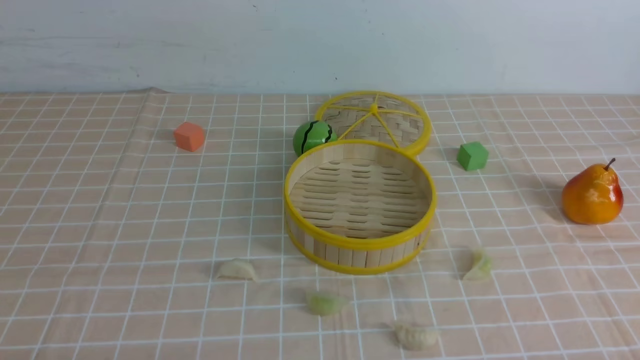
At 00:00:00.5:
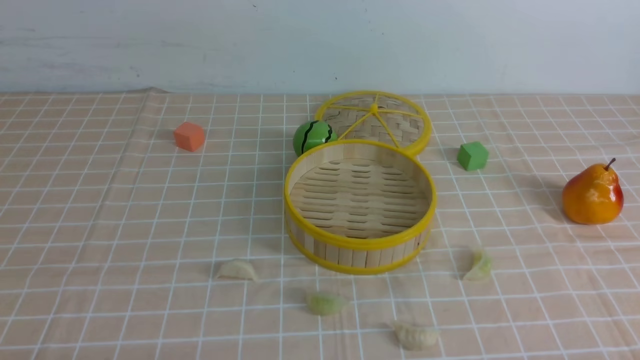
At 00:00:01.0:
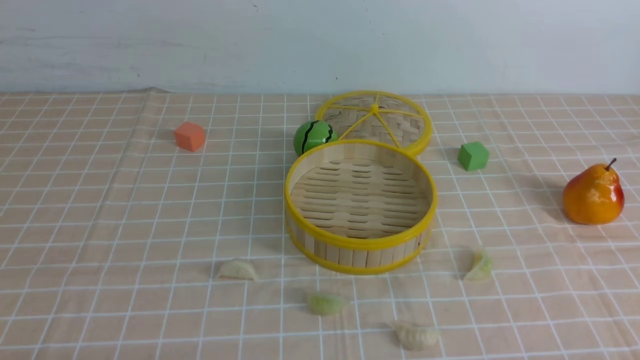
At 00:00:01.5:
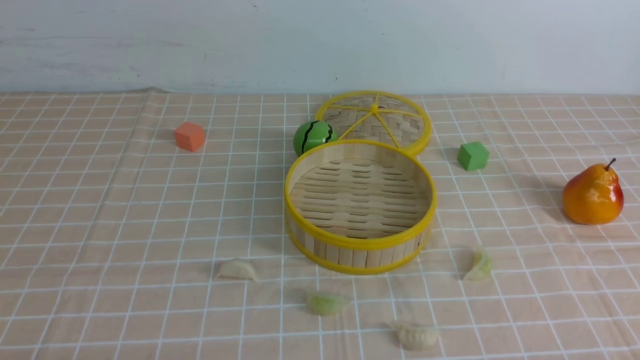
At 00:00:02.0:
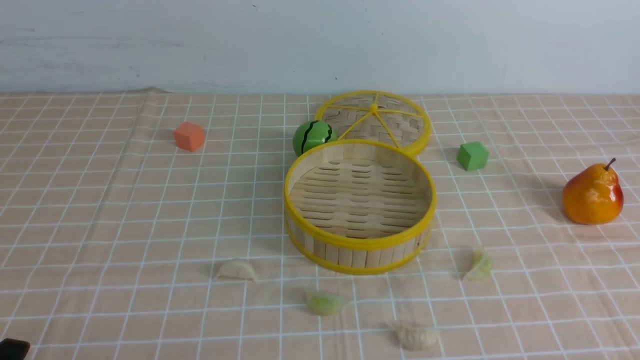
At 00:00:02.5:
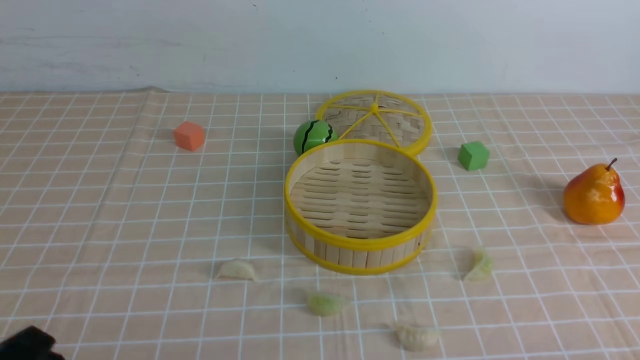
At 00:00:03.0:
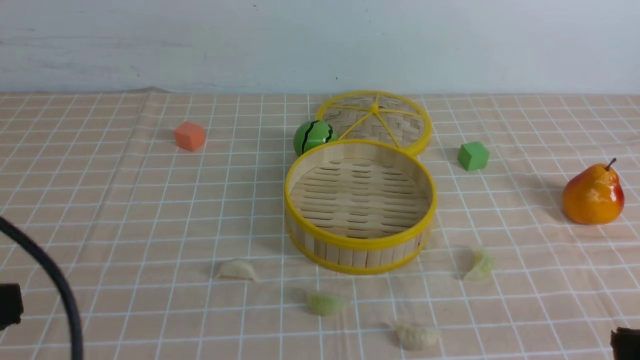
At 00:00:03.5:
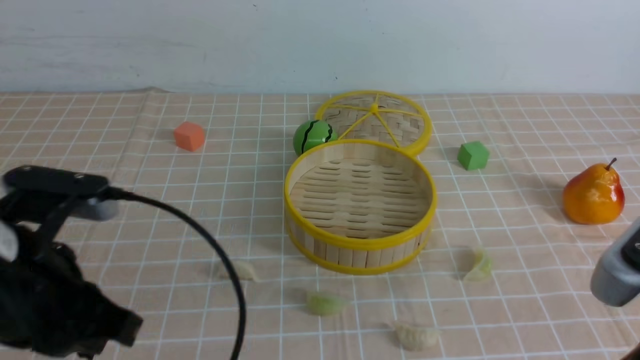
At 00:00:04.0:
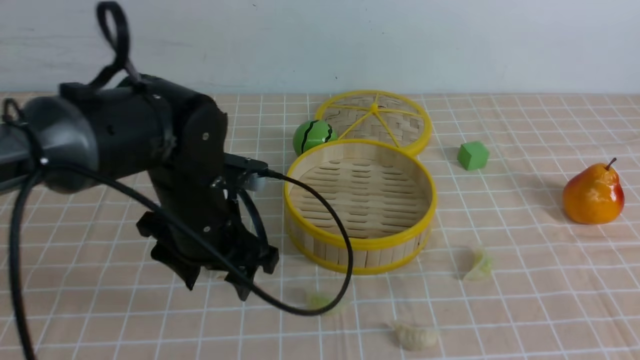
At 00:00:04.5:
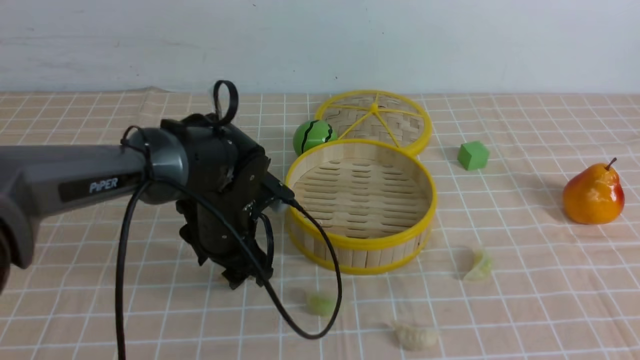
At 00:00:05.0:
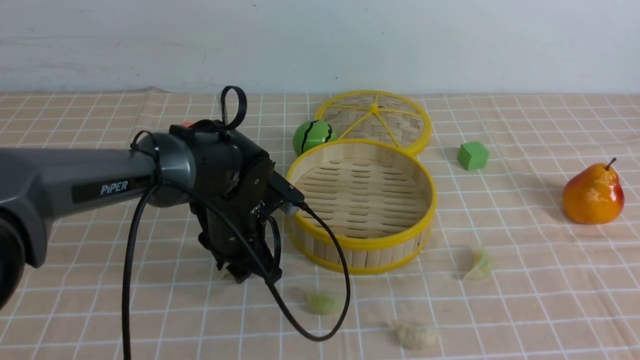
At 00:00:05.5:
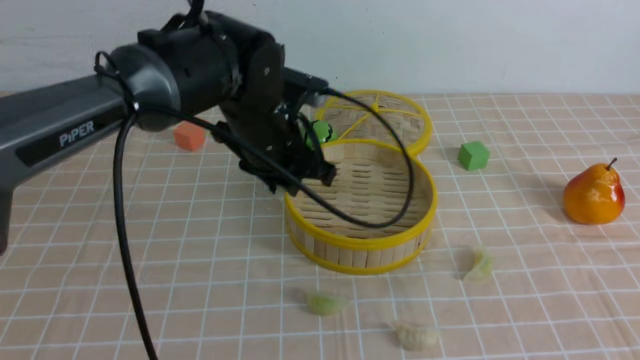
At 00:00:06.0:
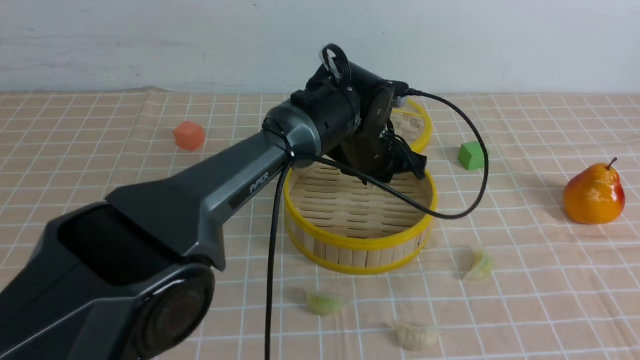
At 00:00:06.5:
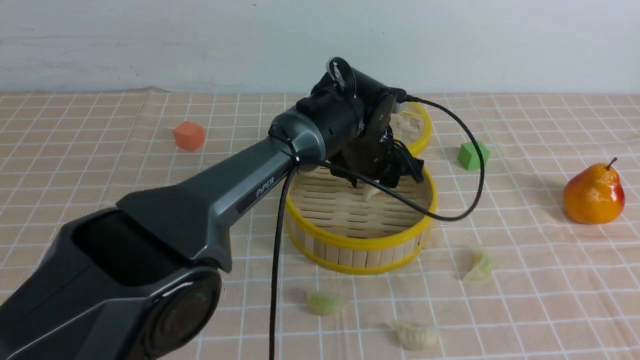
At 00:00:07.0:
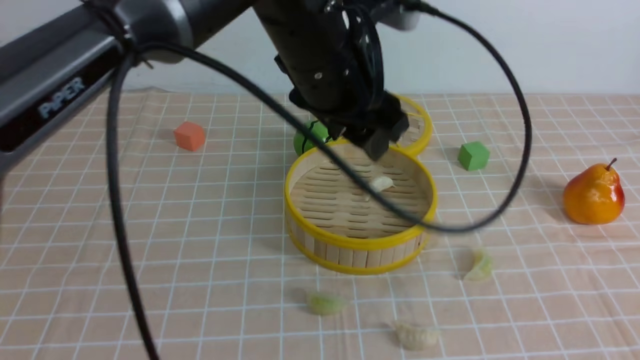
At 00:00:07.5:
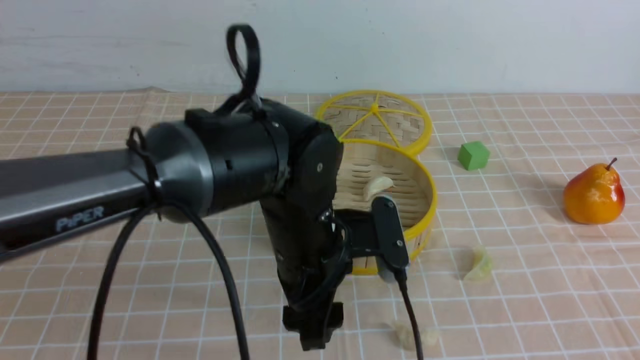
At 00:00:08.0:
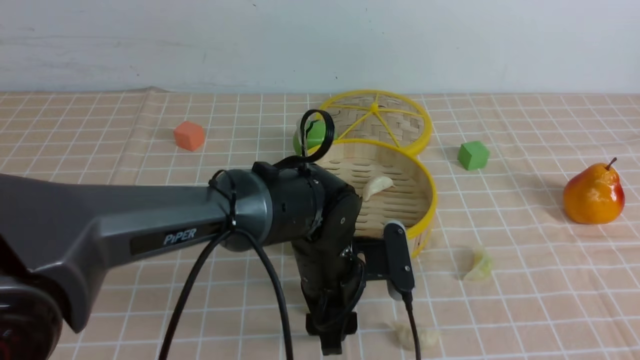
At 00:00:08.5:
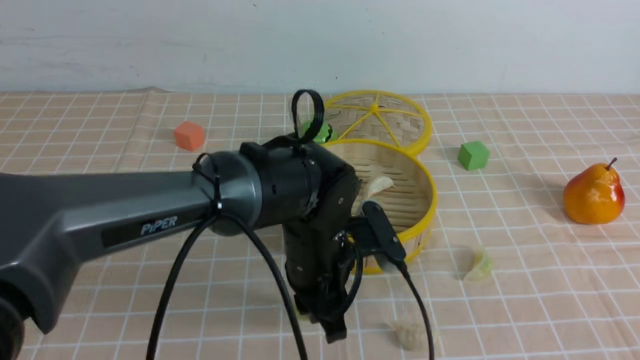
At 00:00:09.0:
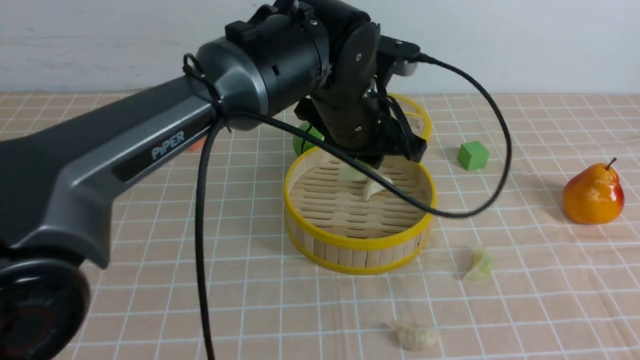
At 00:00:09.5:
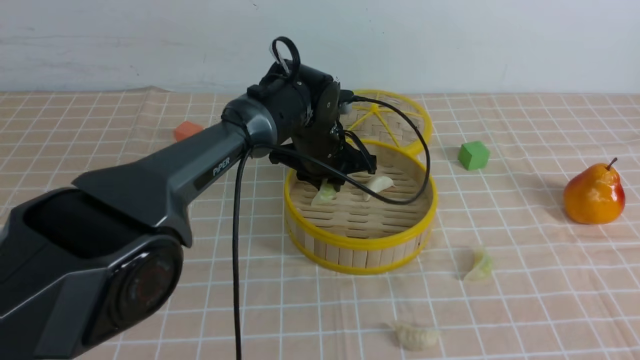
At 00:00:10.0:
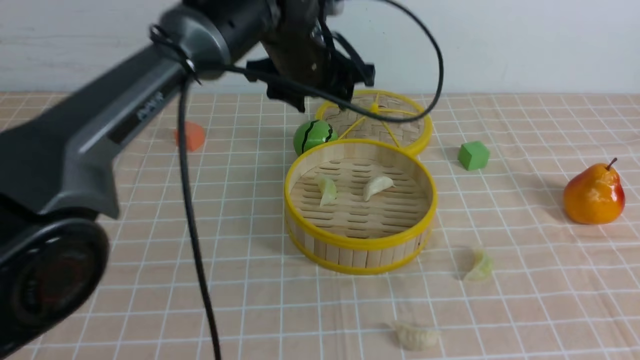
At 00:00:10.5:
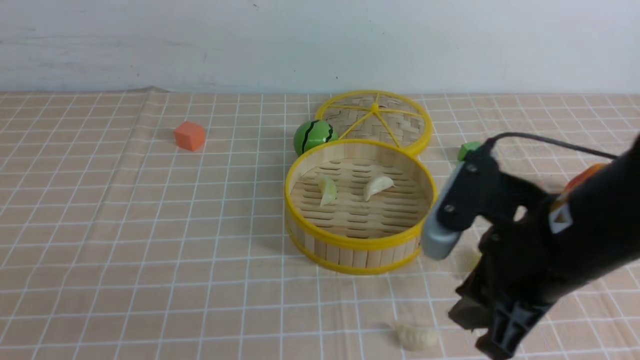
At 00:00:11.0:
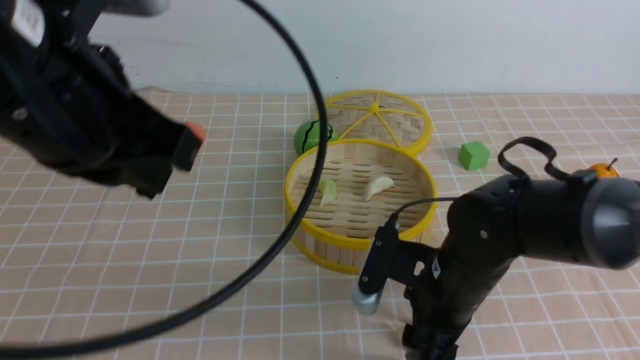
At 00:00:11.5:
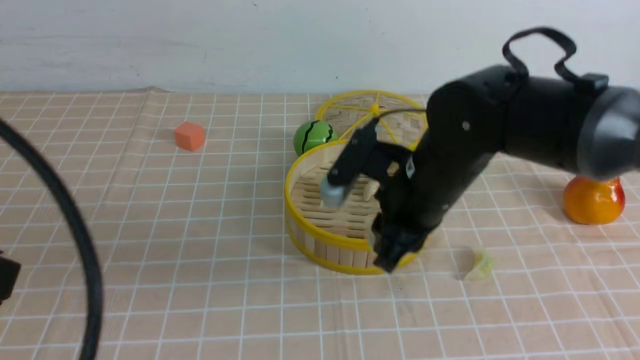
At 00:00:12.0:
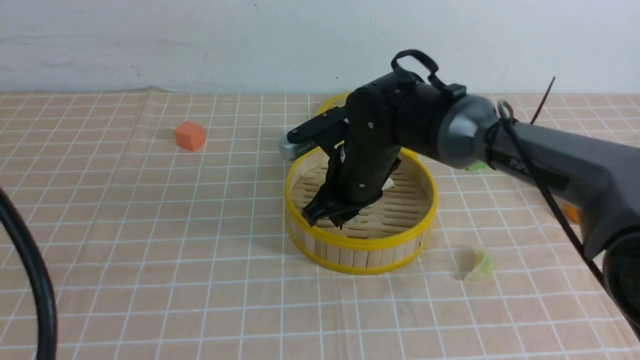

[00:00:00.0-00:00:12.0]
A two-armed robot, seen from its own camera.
Task of the whole recording: put the dumplings into the steamer on the table with the brown tablecloth.
Step, 00:00:00.0 to 00:00:05.0: use the left arm to grab a dumpling.
Step, 00:00:05.5 to 00:00:06.5: use the left arm to put the dumpling into the steamer.
Step, 00:00:07.0 to 00:00:08.0: use the left arm to grab a dumpling.
Step, 00:00:08.5 to 00:00:09.5: use the left arm to put the dumpling into the steamer.
Step, 00:00:10.0 to 00:00:11.0: use the right arm to grab a dumpling.
00:00:02.0 to 00:00:04.0: The right gripper is displaced upward by roughly 15 cm, and closes its fingers. The left gripper travels forward and to the right by approximately 30 cm, and opens.
00:00:04.0 to 00:00:06.0: The left gripper goes roughly 20 cm to the right and forward, and closes its fingers.
00:00:06.0 to 00:00:08.0: The left gripper shifts roughly 15 cm backward, reaches roughly 10 cm upward, then returns, and opens up.
00:00:08.0 to 00:00:10.0: The right gripper moves forward, some 5 cm; the left gripper moves up and down over approximately 20 cm, changing direction 2 times, and closes and opens again.
00:00:10.0 to 00:00:12.0: The right gripper moves forward, to the left and downward, approximately 40 cm. The left gripper travels backward and to the left by approximately 40 cm, and closes.

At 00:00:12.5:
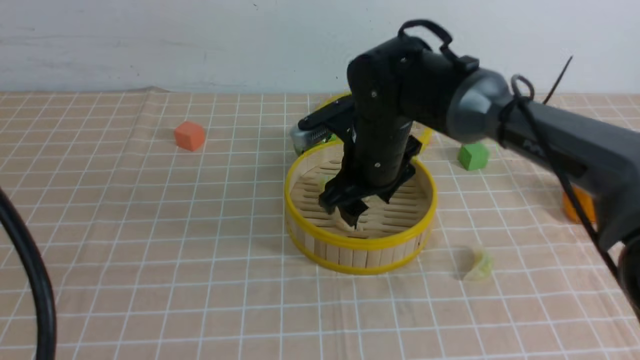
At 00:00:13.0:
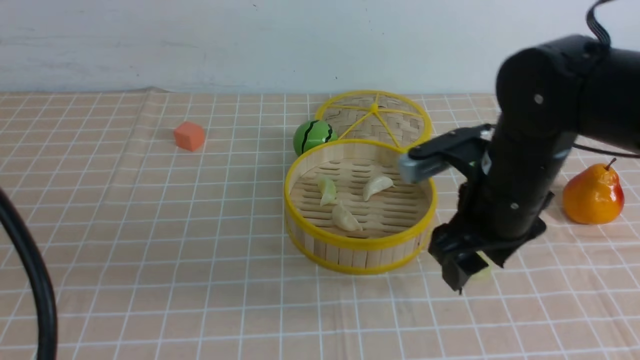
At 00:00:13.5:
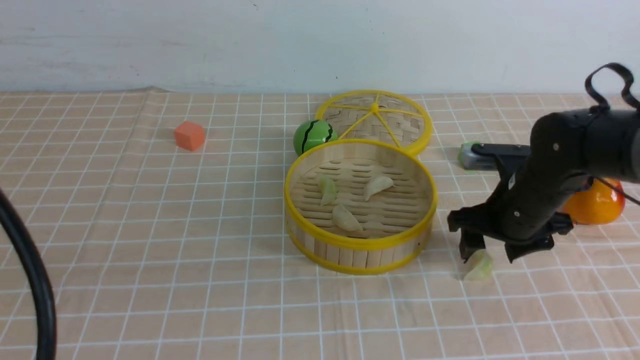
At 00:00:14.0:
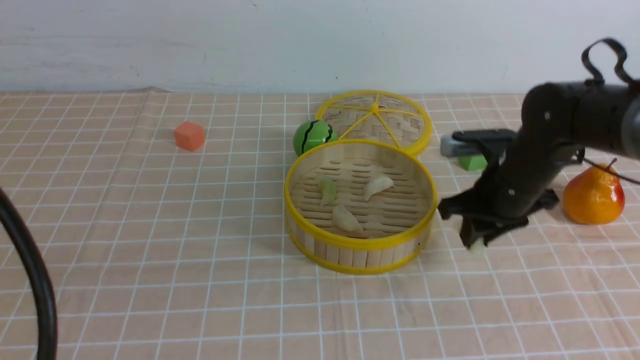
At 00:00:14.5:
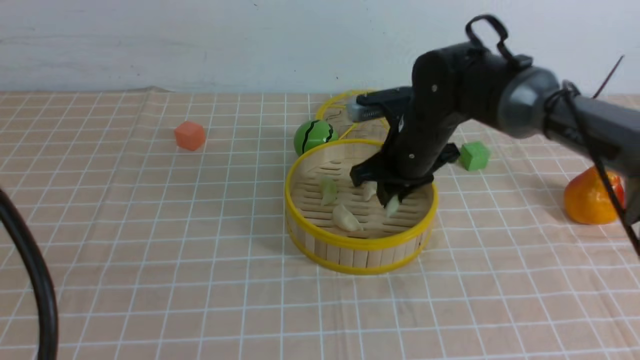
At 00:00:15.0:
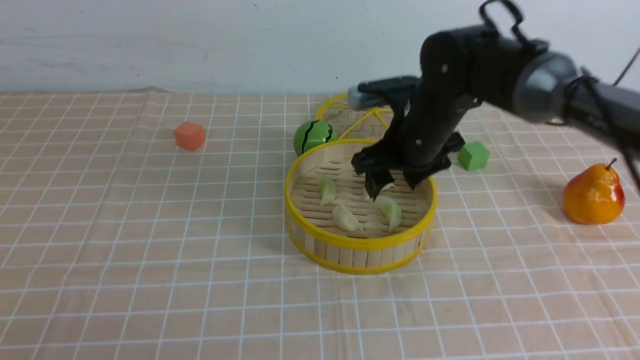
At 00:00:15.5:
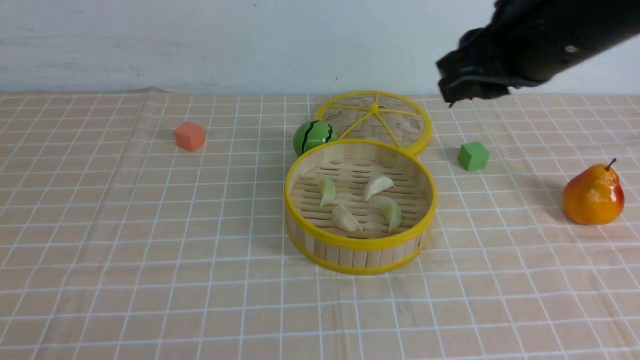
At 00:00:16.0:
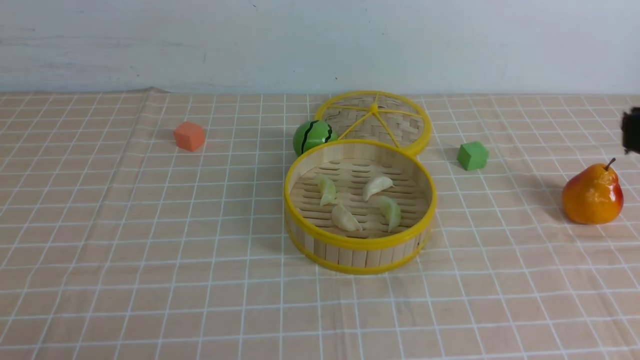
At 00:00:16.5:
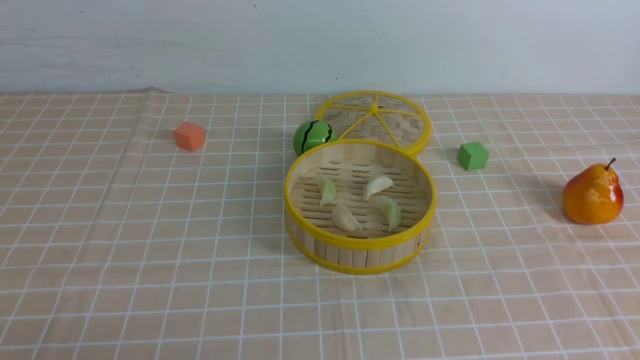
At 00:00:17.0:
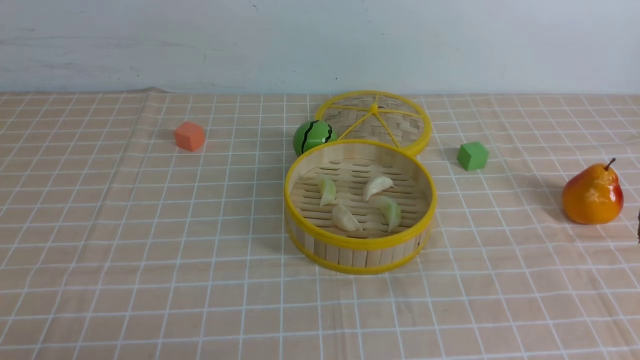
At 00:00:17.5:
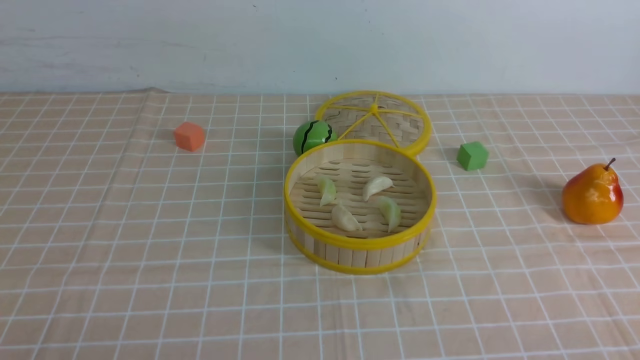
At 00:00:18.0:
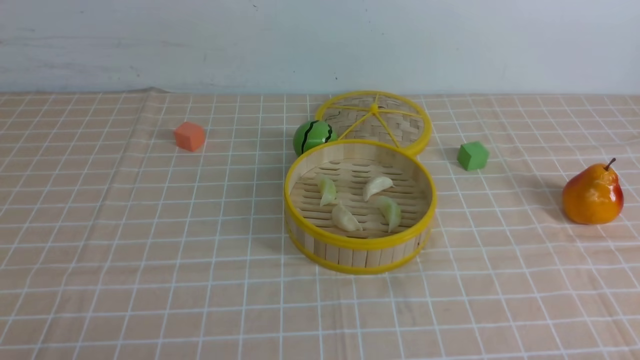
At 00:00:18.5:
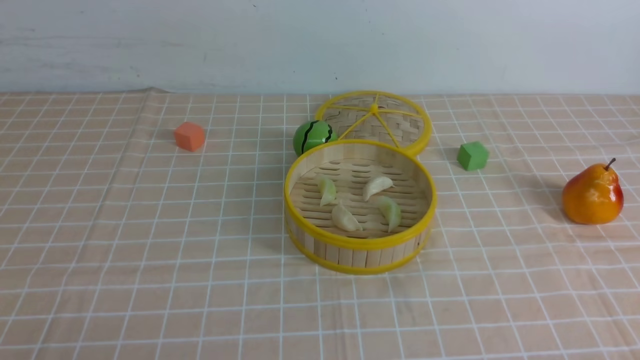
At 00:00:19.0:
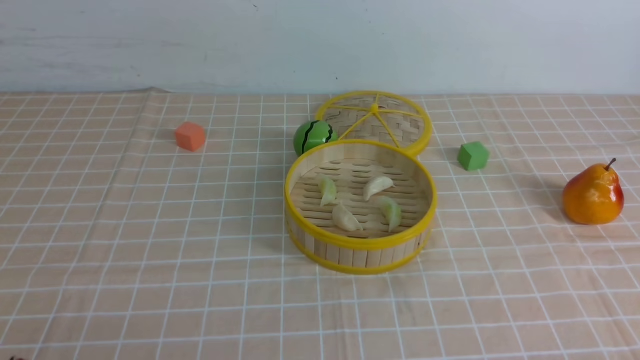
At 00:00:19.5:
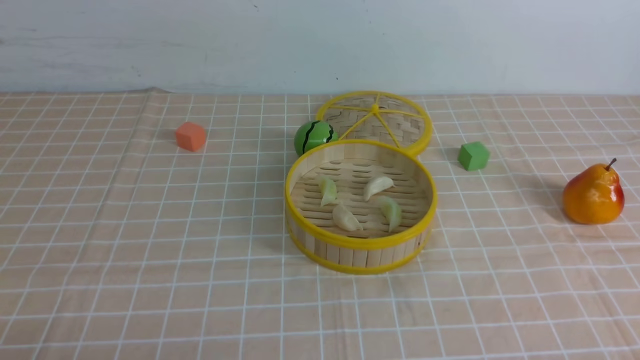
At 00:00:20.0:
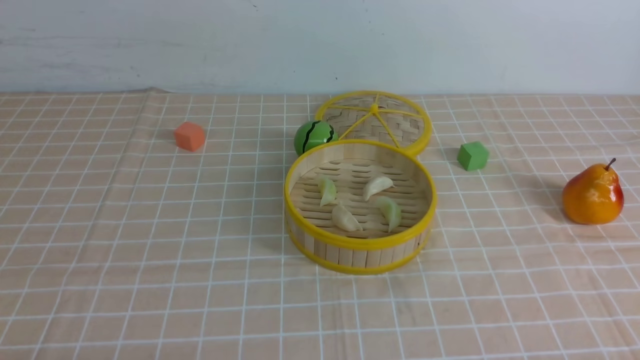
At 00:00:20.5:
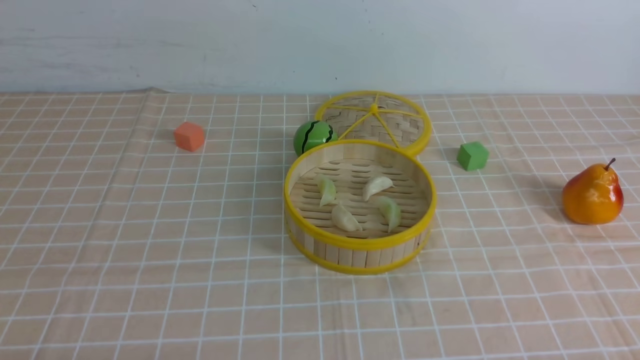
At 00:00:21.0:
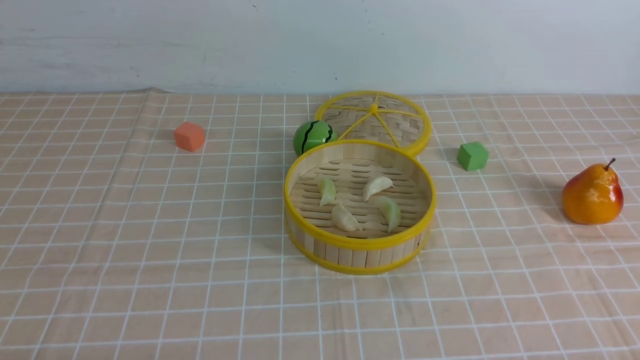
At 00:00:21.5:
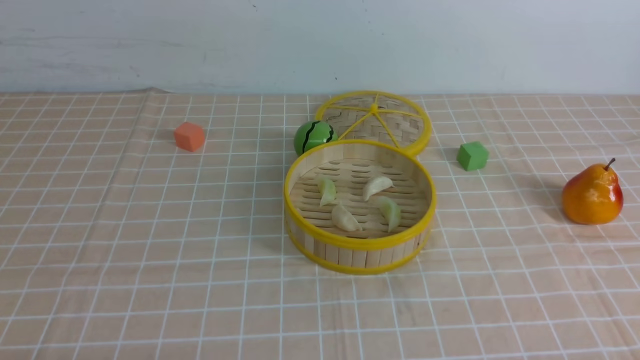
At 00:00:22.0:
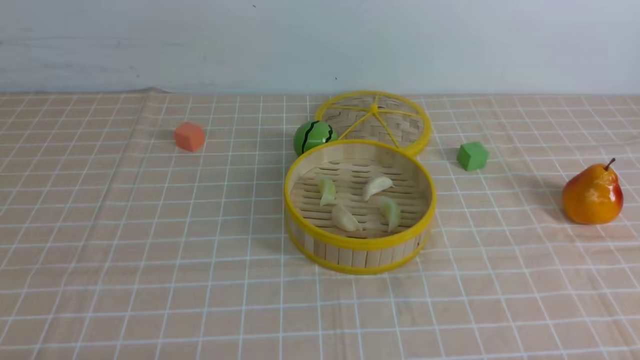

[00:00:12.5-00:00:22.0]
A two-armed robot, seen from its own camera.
Task of the whole recording: put the dumplings into the steamer on the table with the brown tablecloth.
Step, 00:00:13.0 to 00:00:13.5: use the right arm to grab a dumpling.
Step, 00:00:14.0 to 00:00:14.5: use the right arm to put the dumpling into the steamer.
00:00:12.5 to 00:00:14.5: The right gripper goes to the right and returns, about 15 cm each way, and closes its fingers.
00:00:14.5 to 00:00:16.5: The right gripper goes some 40 cm backward, upward and to the right, and closes up. The left gripper shifts roughly 15 cm downward.
00:00:20.0 to 00:00:22.0: Both grippers stay put.
